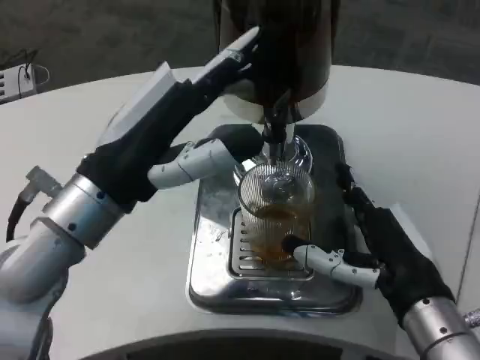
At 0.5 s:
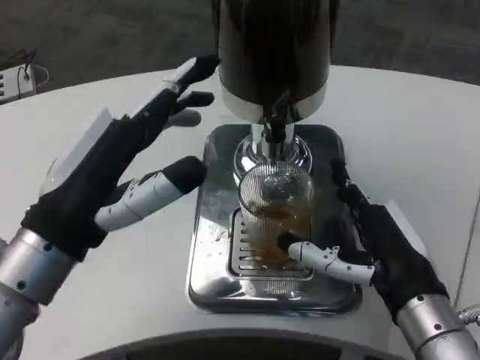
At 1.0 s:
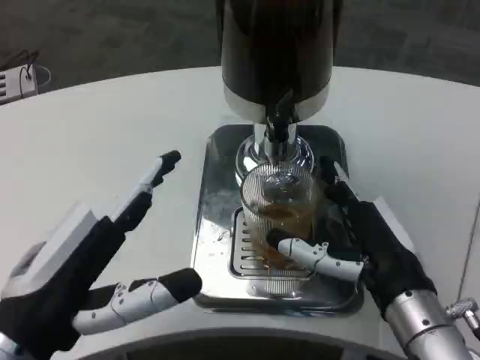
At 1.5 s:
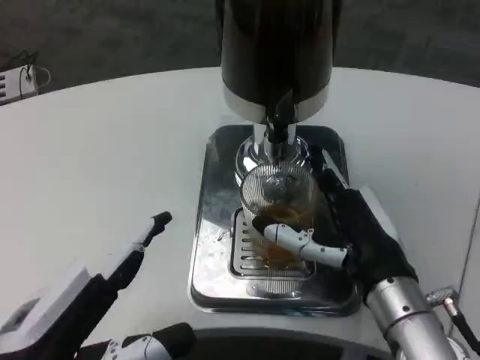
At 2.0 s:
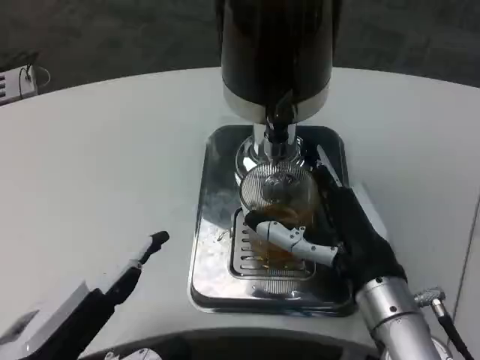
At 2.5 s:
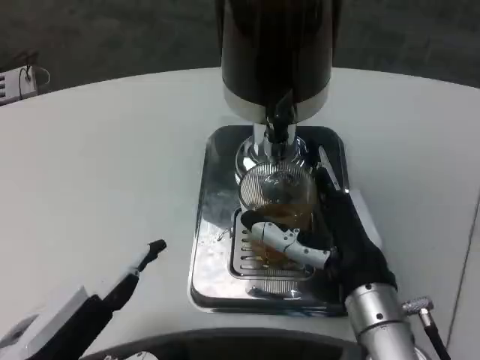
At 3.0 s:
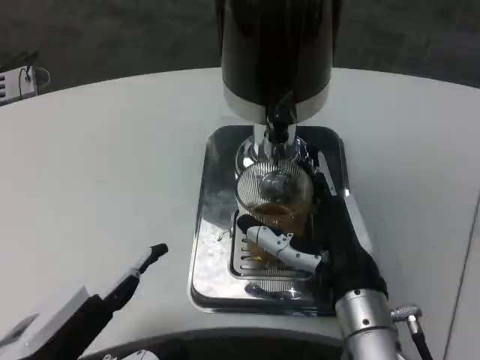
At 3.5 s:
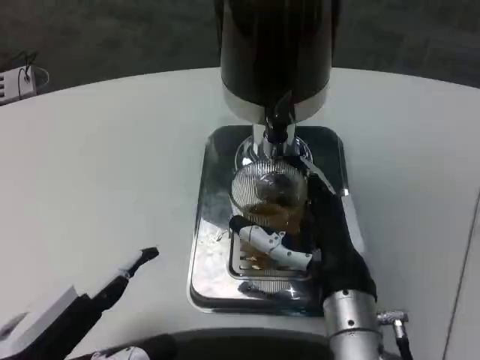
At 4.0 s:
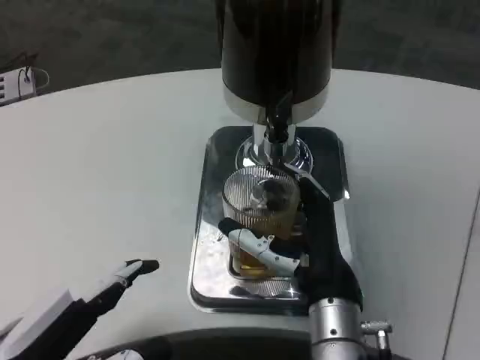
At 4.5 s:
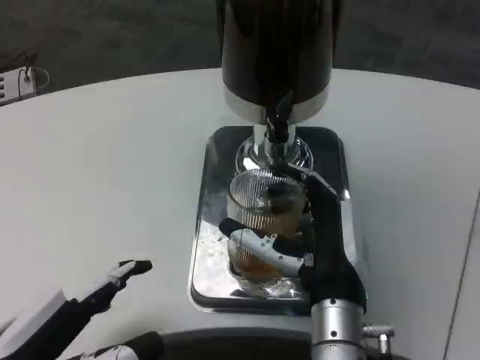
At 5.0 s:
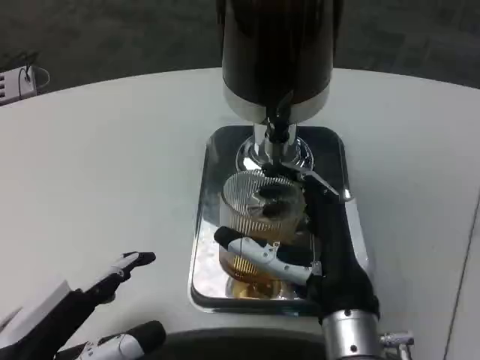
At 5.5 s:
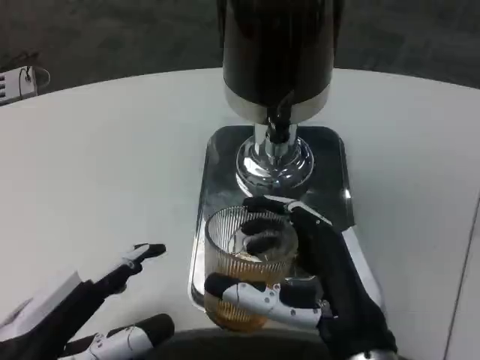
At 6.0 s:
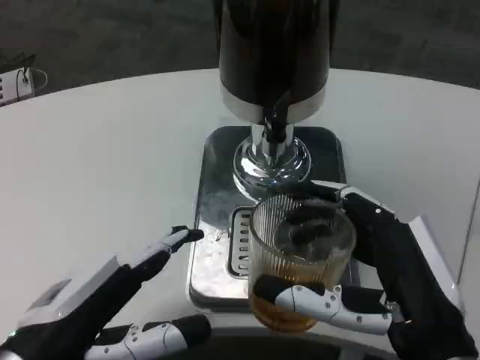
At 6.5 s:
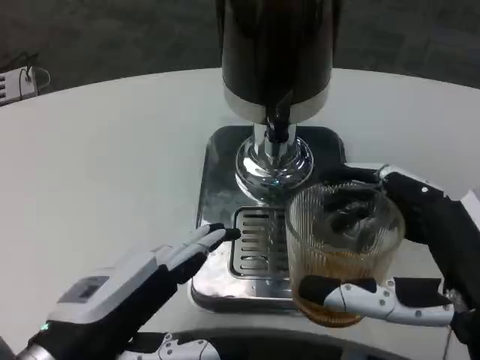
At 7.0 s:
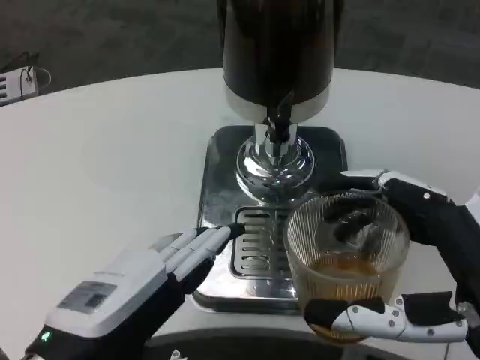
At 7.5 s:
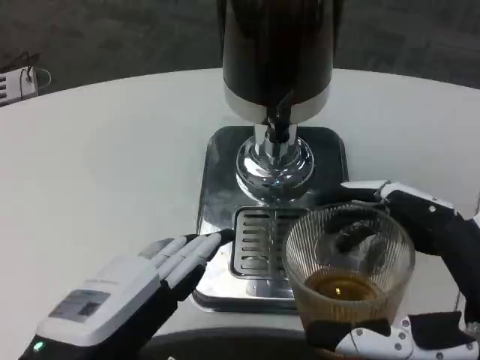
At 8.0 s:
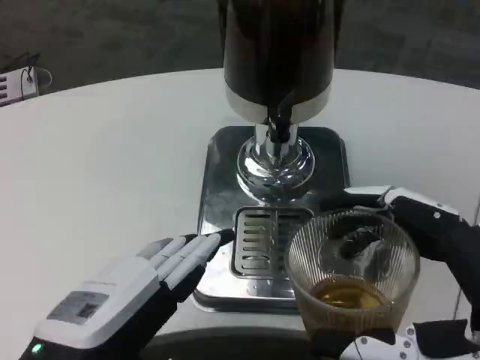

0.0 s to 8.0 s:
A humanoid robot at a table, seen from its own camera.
Task of the whole recording: Grasp the cup under the faucet to collect the drink, then remove the cup.
0.0 to 2.0 s: The left hand goes approximately 15 cm backward and downward.
2.0 to 4.0 s: The right hand travels to the left by approximately 5 cm.
4.0 to 6.0 s: The right hand moves backward and to the right, about 15 cm.
6.0 to 8.0 s: The right hand heads to the right, covering some 5 cm.

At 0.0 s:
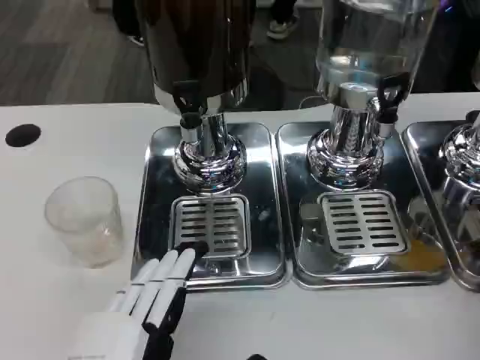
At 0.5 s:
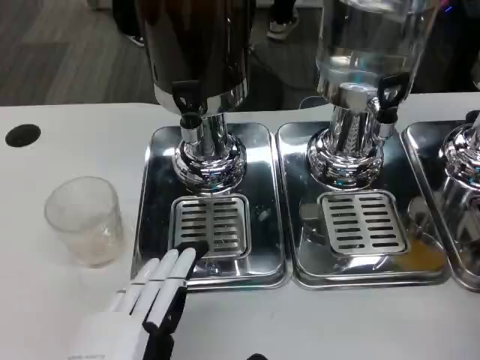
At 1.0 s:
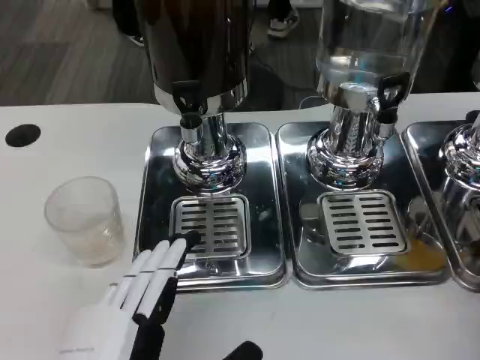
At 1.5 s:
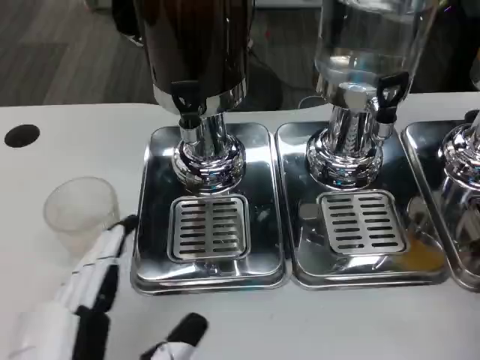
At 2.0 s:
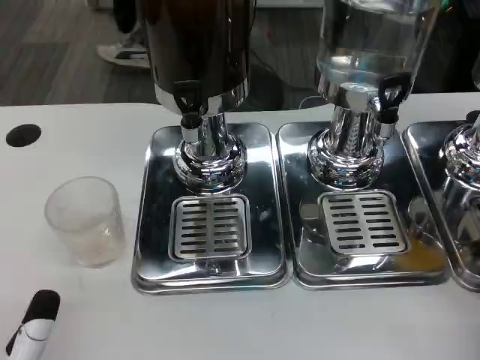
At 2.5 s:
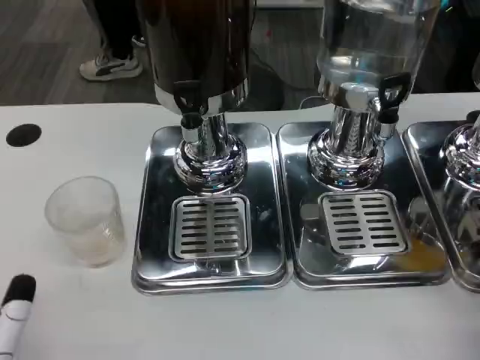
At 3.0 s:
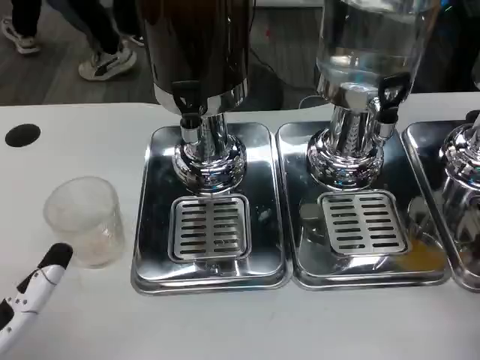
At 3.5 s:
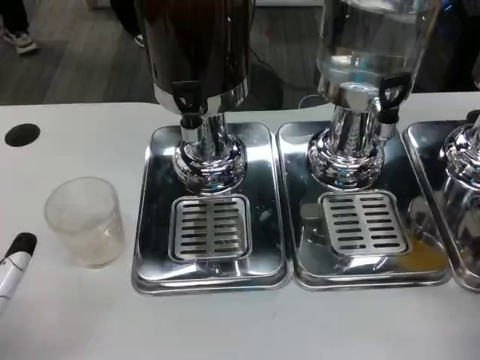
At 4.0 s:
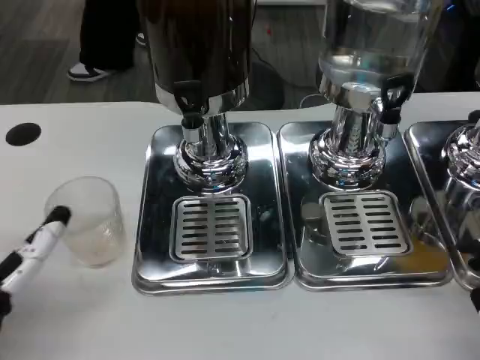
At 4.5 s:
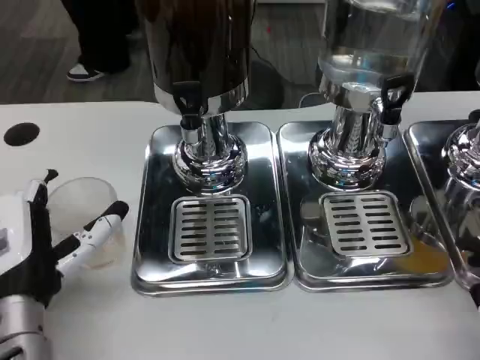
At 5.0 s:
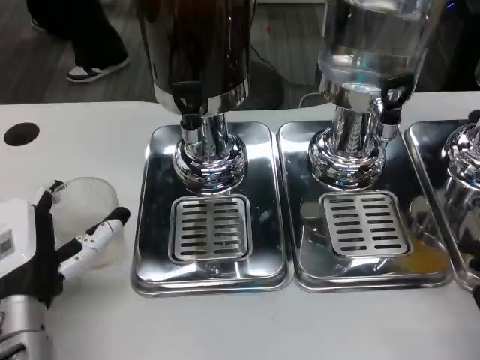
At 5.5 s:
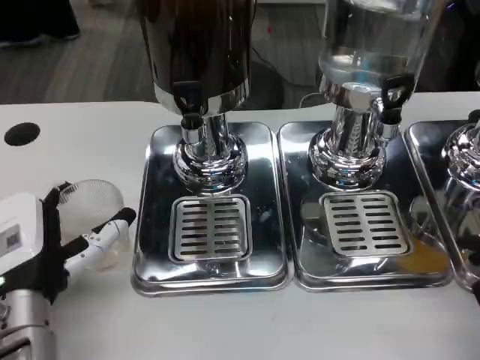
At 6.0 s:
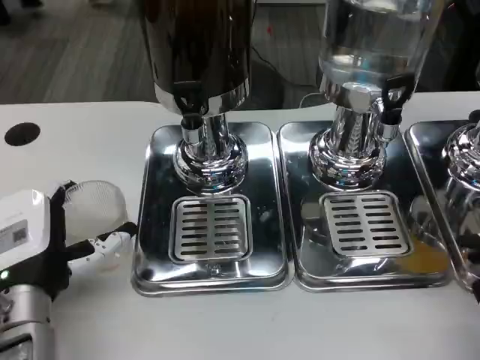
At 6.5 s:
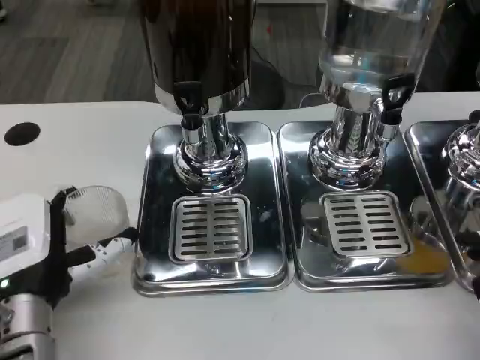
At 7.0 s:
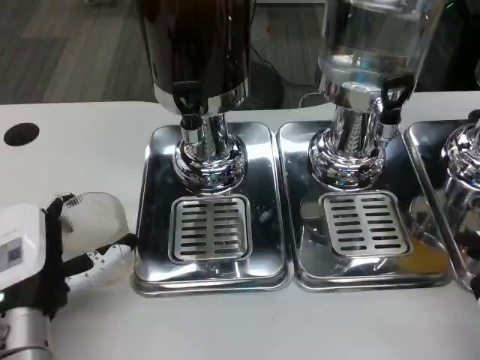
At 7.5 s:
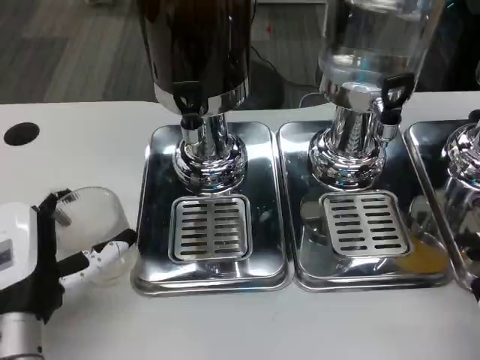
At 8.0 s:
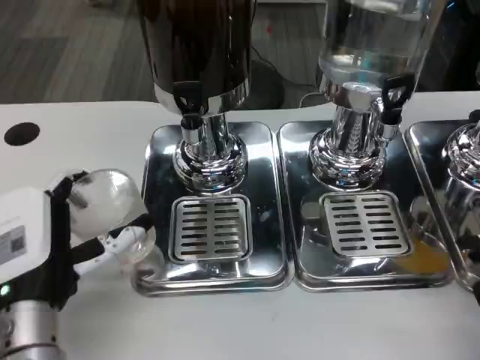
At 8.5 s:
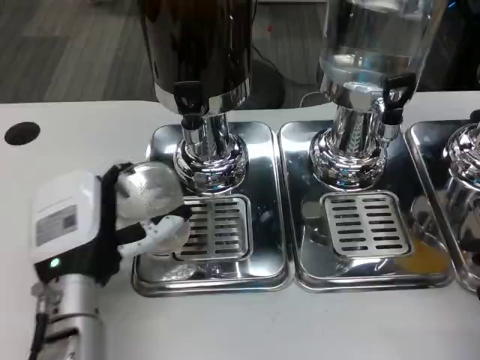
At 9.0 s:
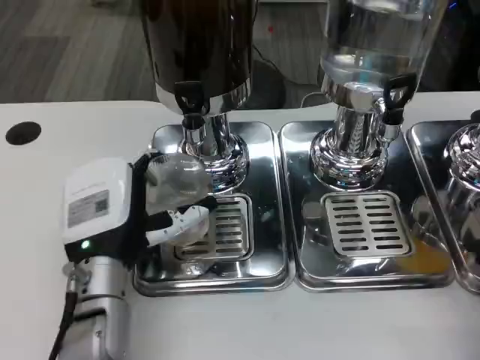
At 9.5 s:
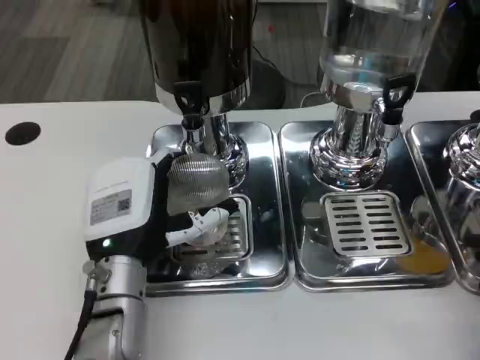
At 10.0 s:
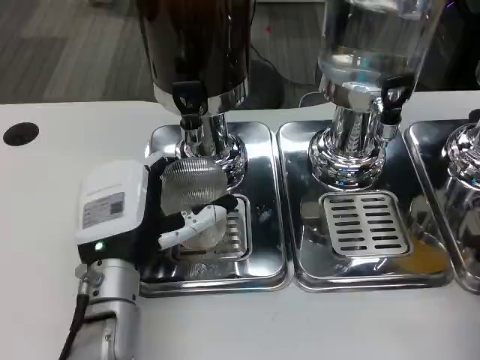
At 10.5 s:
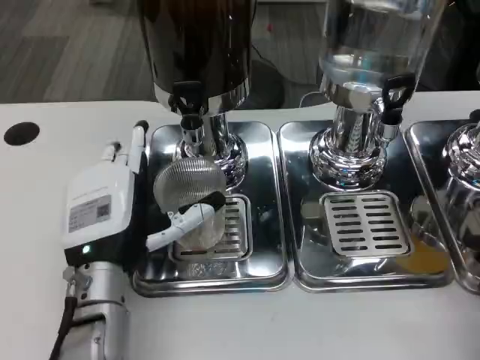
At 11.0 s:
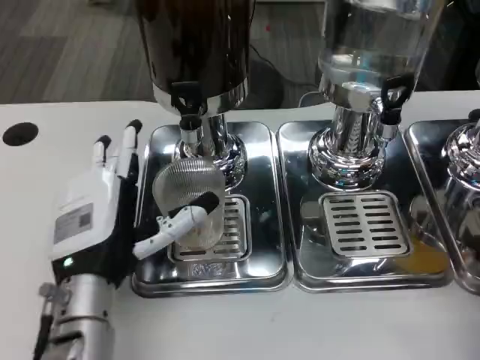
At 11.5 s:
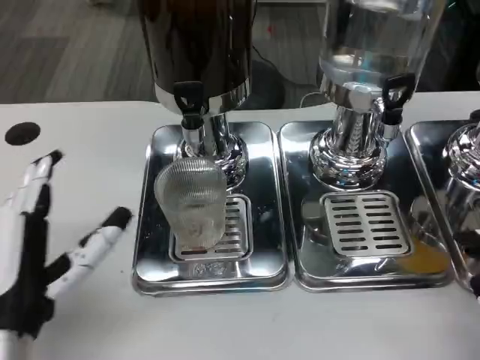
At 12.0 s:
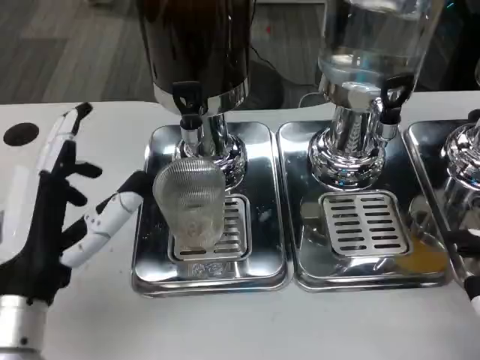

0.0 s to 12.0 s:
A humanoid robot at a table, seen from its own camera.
Task of the whole recording: Grasp the cup under the faucet to collect the drink, then remove the cup.
0.0 to 2.0 s: The left hand heads to the left, covering roughly 5 cm.
2.0 to 4.0 s: The left hand heads forward, covering roughly 10 cm.
4.0 to 8.0 s: The hands make only small movements.
8.0 to 10.0 s: The left hand changes place by roughly 5 cm.
10.0 to 12.0 s: The left hand goes some 10 cm to the left and backward.

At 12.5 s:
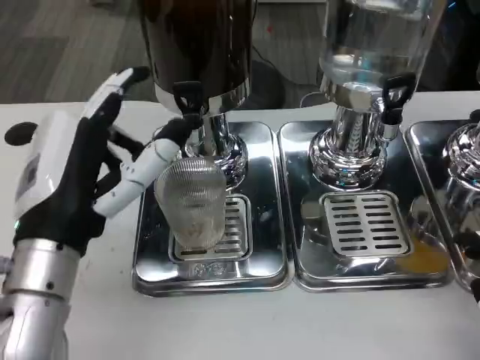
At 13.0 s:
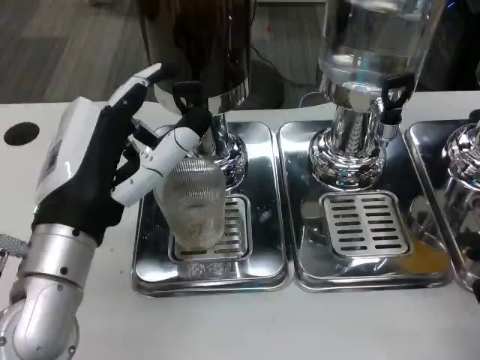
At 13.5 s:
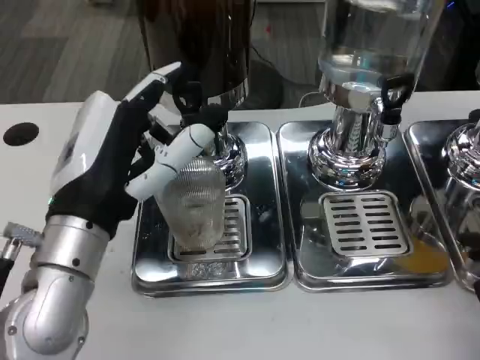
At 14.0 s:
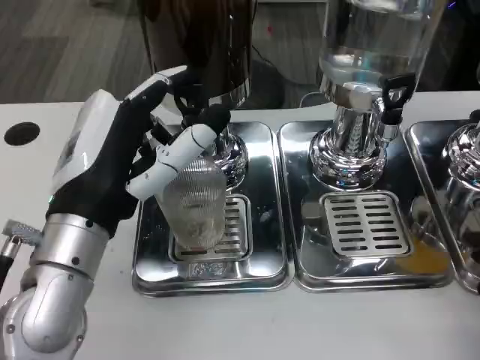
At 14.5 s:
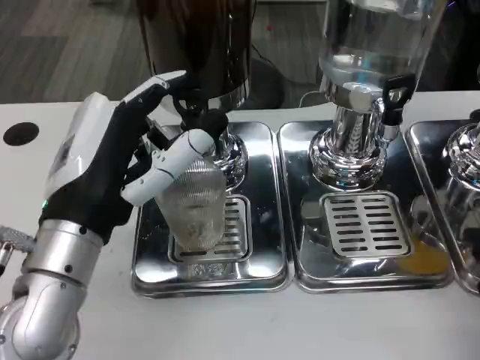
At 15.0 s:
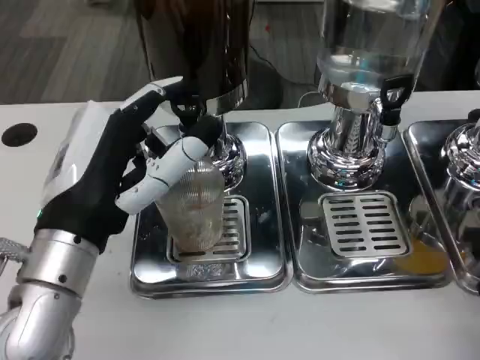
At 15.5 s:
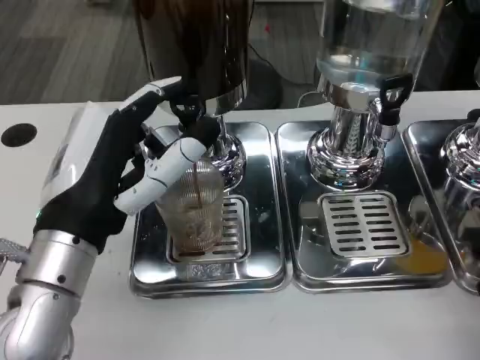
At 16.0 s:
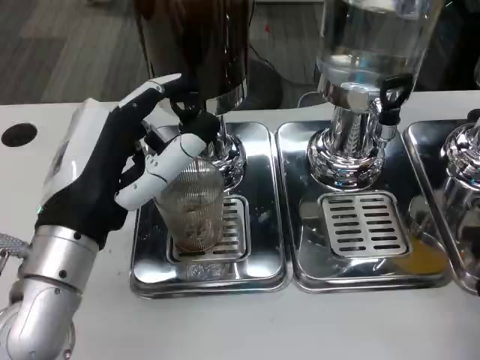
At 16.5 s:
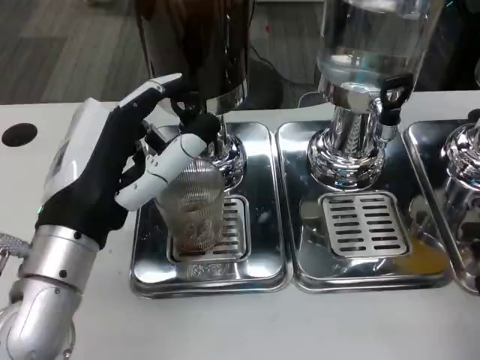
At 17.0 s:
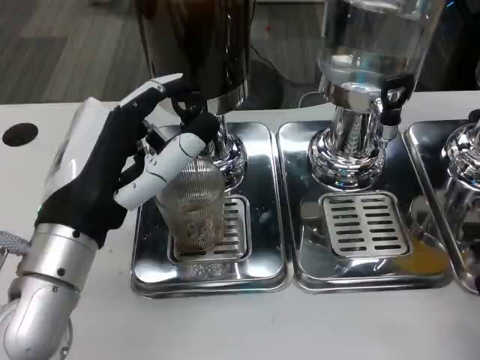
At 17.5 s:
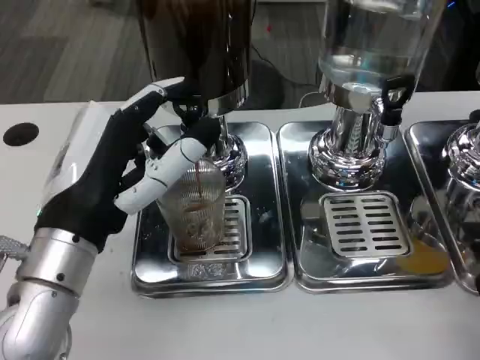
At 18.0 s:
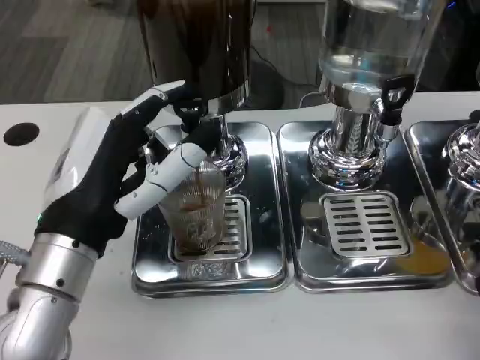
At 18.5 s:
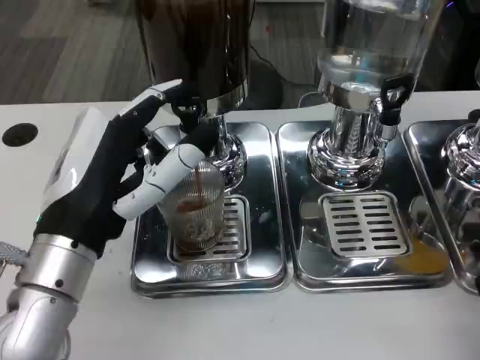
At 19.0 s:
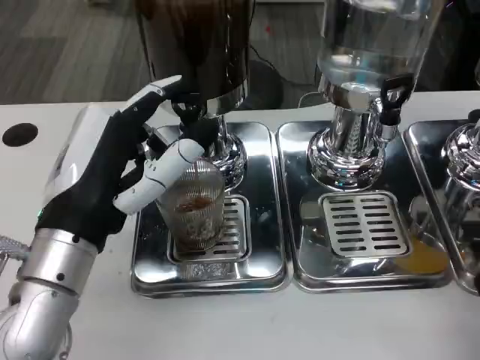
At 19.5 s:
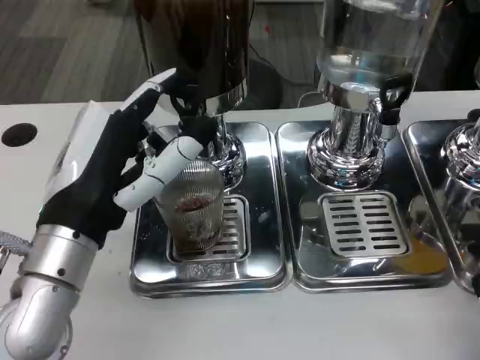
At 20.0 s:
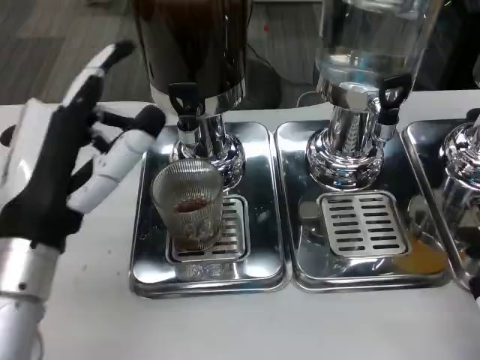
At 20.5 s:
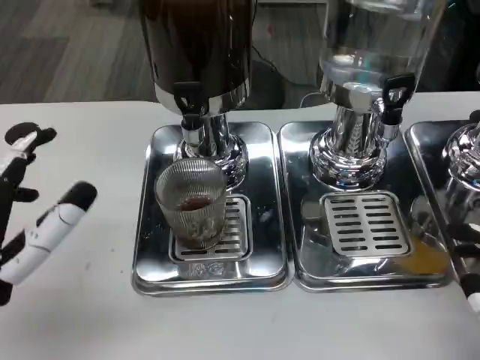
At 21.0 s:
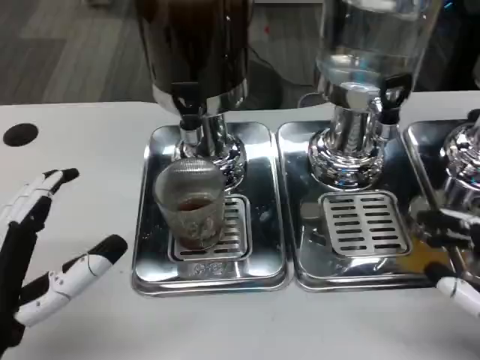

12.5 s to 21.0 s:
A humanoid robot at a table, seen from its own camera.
Task of the whole recording: Grasp the cup under the faucet to collect the drink, then remove the cup.
12.5 to 14.5 s: There are only small adjustments of the hands.
14.5 to 19.0 s: Both hands stay put.
19.0 to 21.0 s: The left hand heads backward and to the left, covering about 10 cm.
